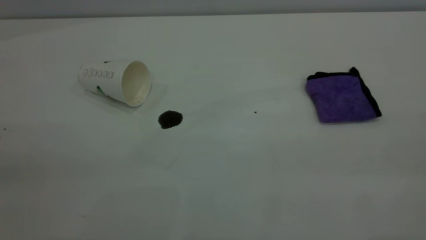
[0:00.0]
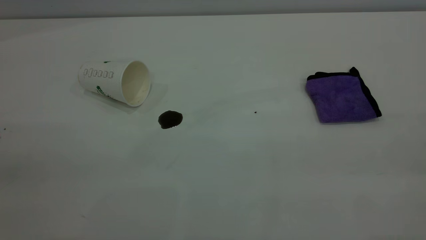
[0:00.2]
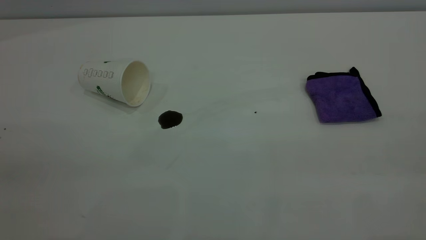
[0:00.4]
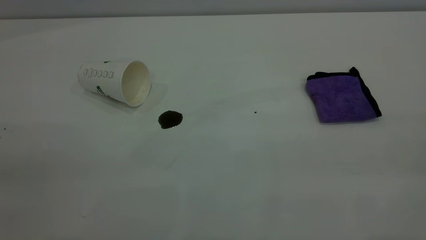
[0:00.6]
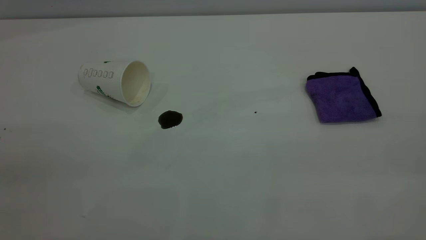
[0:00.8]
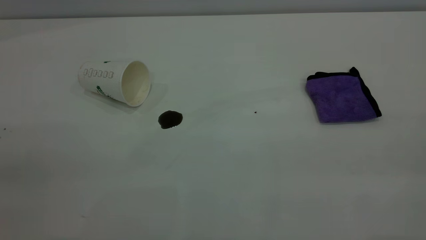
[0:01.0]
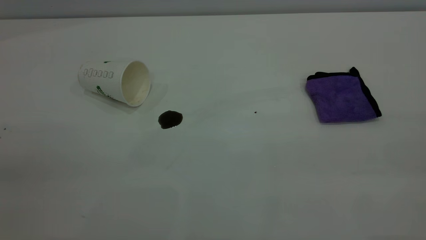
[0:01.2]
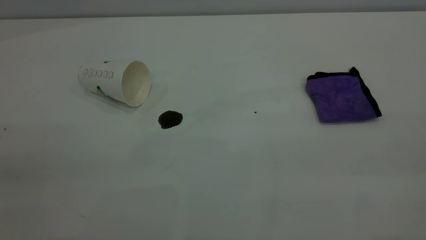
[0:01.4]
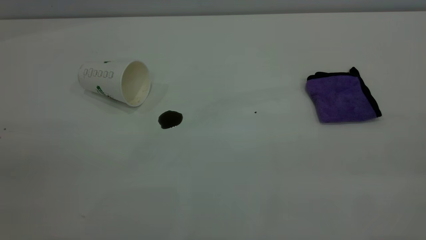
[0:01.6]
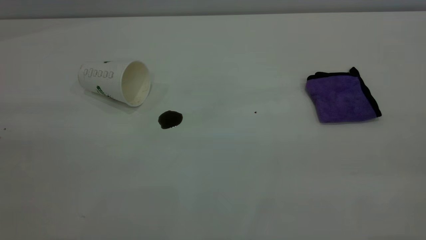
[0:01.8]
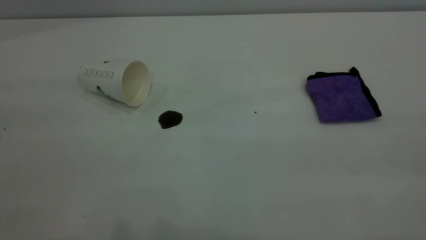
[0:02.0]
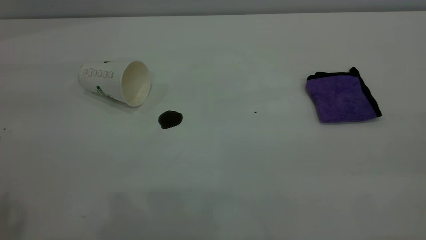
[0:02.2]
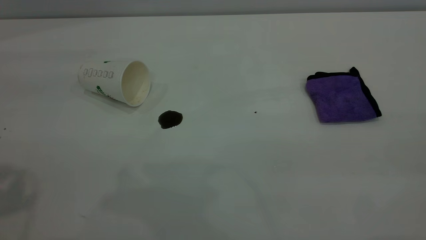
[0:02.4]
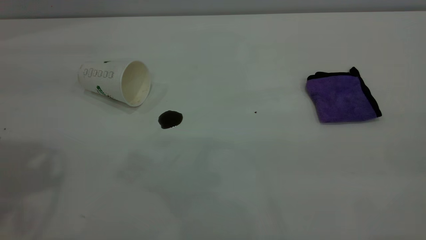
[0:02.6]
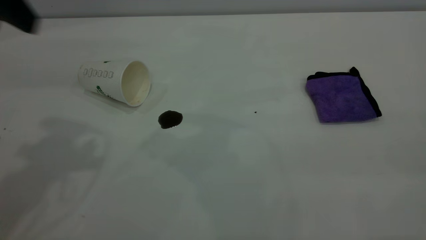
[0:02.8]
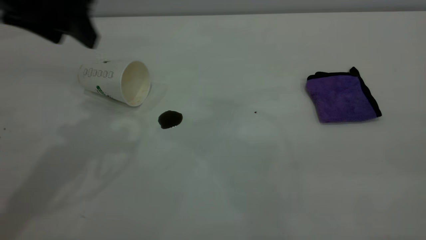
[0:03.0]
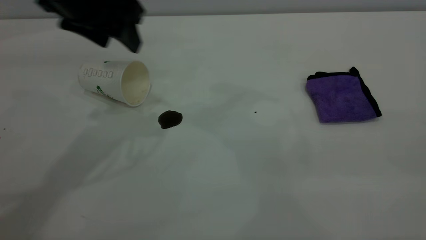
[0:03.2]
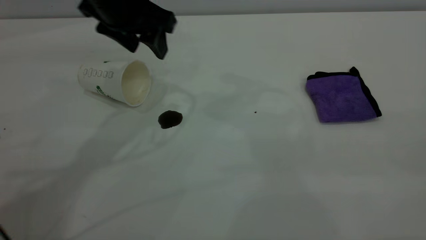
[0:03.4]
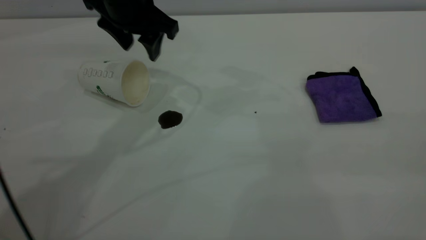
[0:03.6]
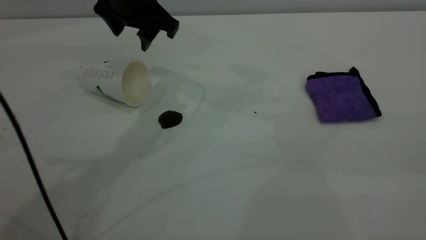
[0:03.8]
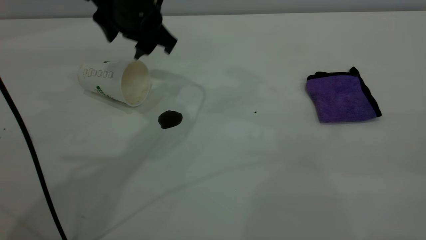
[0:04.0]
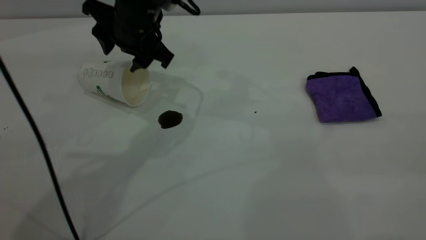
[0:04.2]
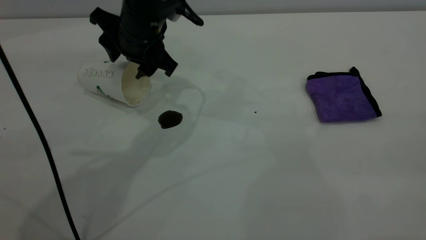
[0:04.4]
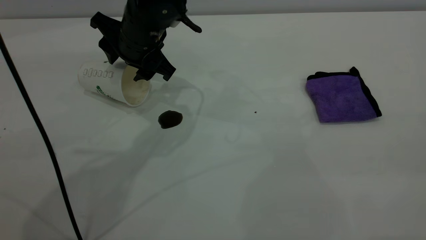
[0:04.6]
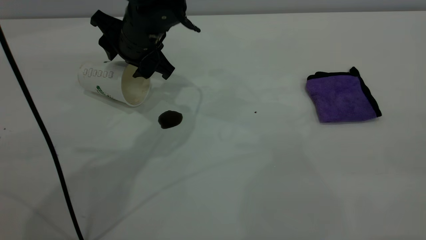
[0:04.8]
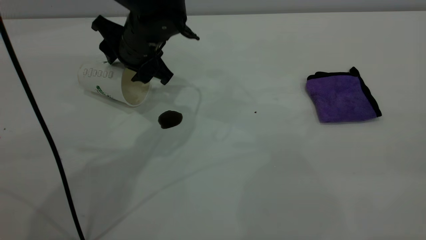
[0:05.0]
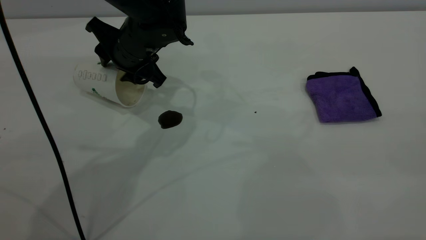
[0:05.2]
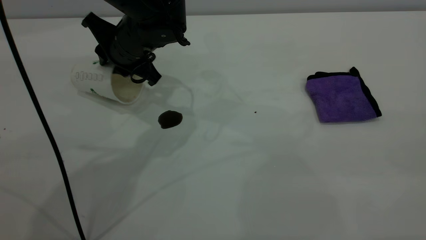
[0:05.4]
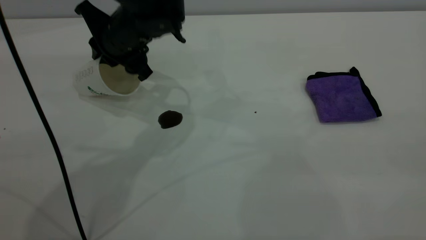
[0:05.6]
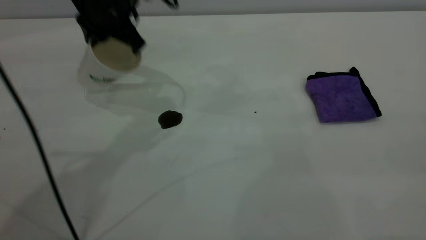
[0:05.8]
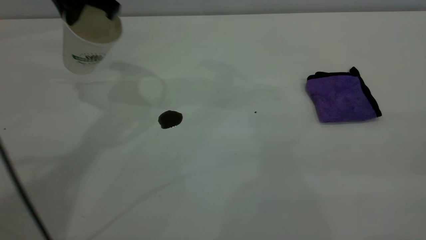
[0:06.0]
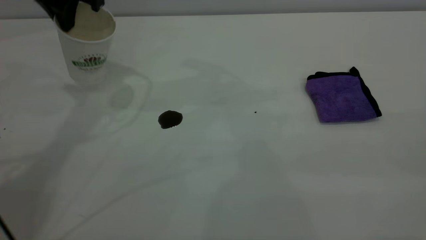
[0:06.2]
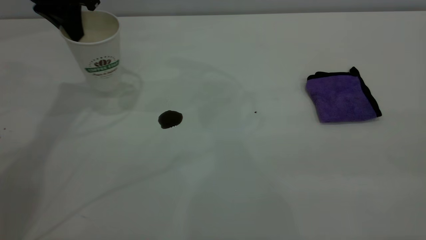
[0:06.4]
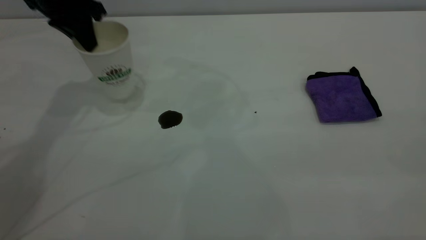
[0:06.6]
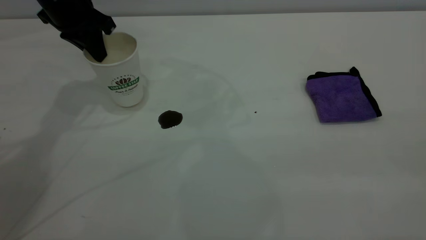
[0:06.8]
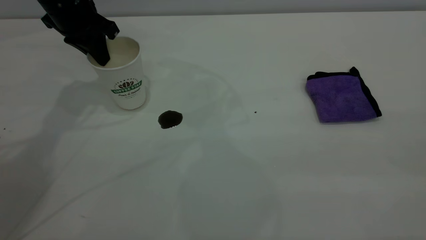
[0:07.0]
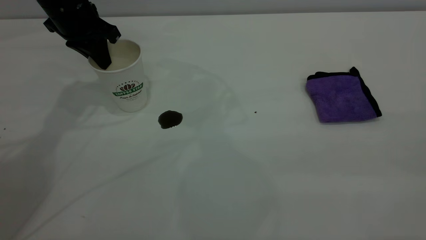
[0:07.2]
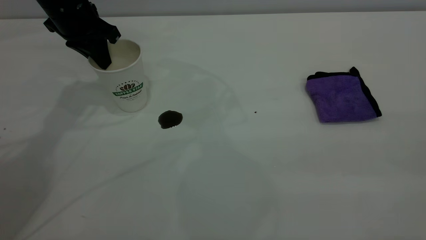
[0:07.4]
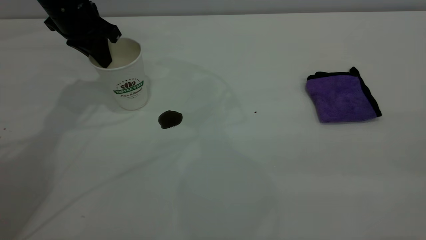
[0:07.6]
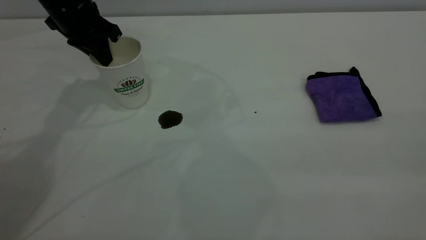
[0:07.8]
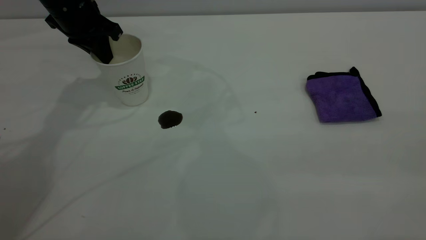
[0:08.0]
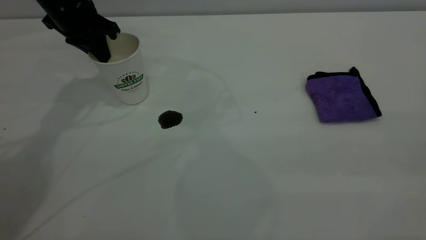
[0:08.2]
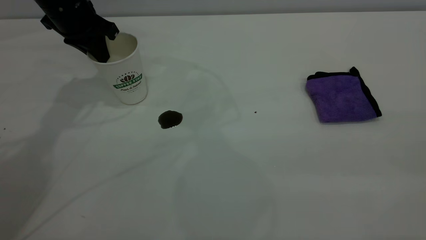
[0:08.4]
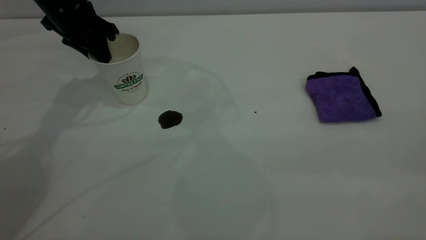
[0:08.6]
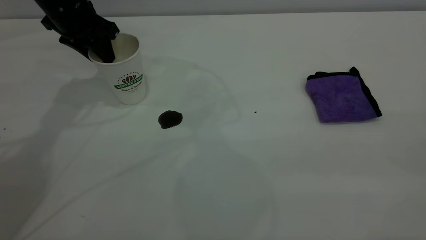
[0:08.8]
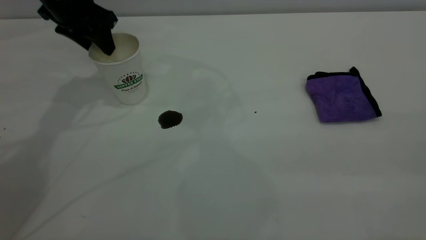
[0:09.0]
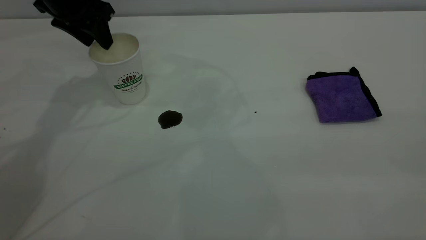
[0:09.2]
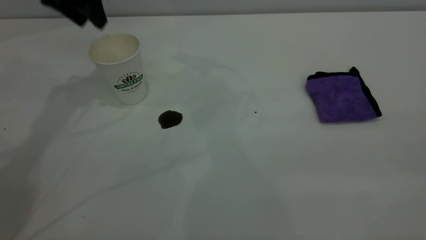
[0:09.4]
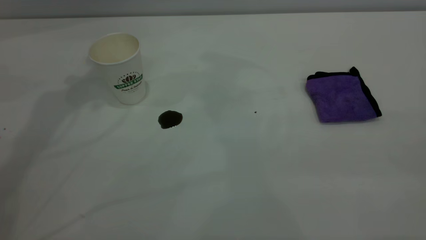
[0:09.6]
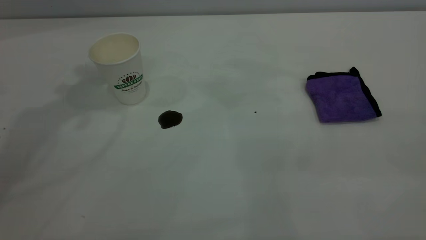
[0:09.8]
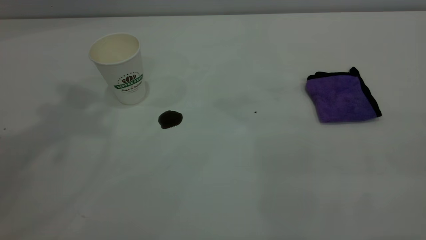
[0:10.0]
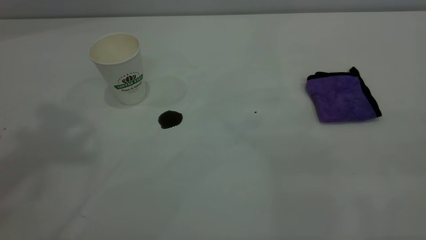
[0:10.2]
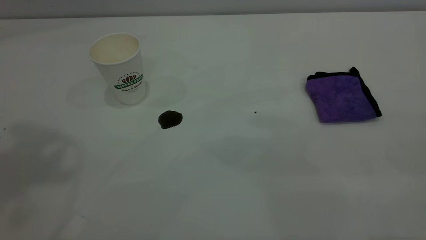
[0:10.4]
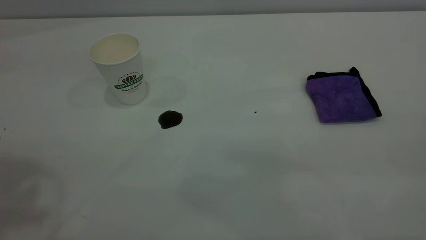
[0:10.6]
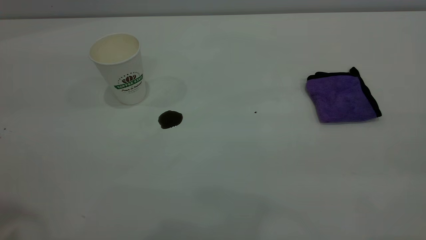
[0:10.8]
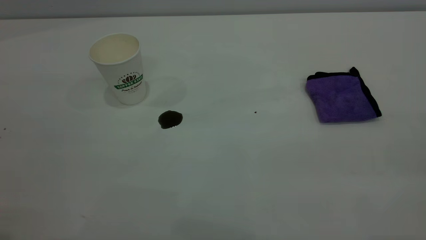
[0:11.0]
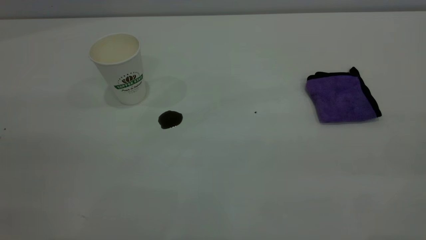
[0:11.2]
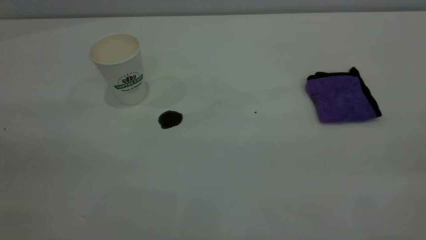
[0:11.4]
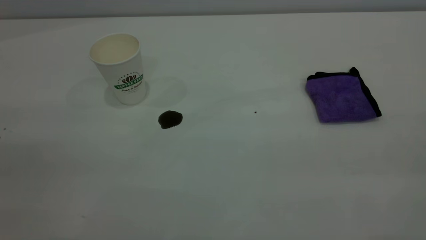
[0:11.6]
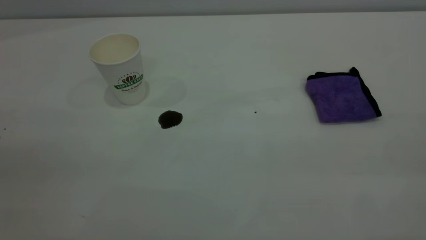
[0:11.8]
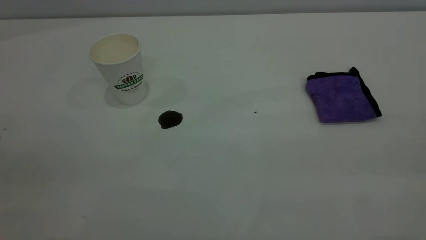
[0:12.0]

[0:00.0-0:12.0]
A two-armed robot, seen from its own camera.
Task of the whole recording: the left gripper pick up the fallen cup and place it upright, the right gripper grasp the purple rag and wipe the coffee stain on the table, the right gripper put the purple rag back in its original position.
Step, 0:00.0 to 0:09.2: Stand the paper cup upright.
0:00.0 to 0:01.6: Both grippers stay about where they are.
0:01.6 to 0:03.0: The left gripper heads forward, covering about 35 cm.
0:03.0 to 0:04.4: The left gripper travels downward, to the right and forward by some 15 cm.
0:04.4 to 0:06.0: The left gripper travels upward and to the left by approximately 15 cm, and closes its fingers.
0:06.0 to 0:07.6: The left gripper shifts roughly 10 cm downward and to the left.
0:07.6 to 0:09.0: The left gripper opens.
0:09.0 to 0:10.4: The left gripper heads upward and backward, covering some 40 cm.

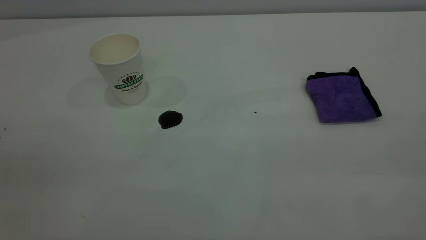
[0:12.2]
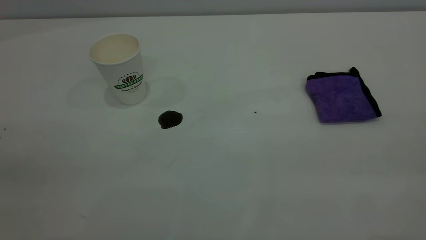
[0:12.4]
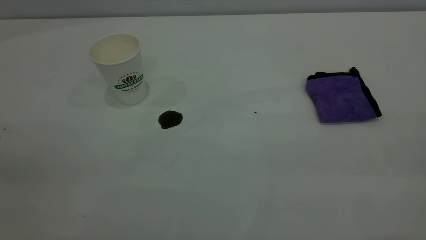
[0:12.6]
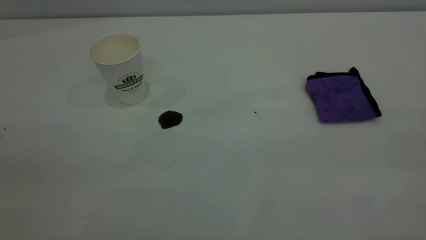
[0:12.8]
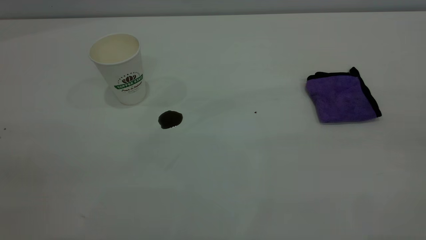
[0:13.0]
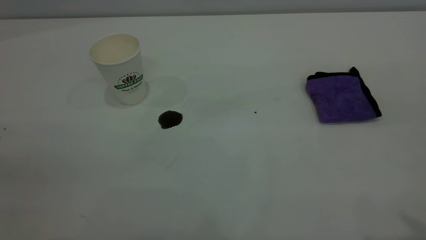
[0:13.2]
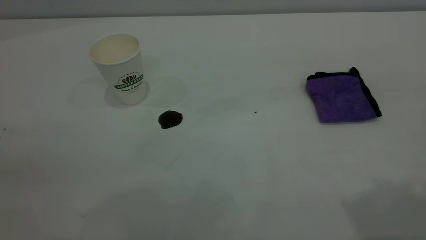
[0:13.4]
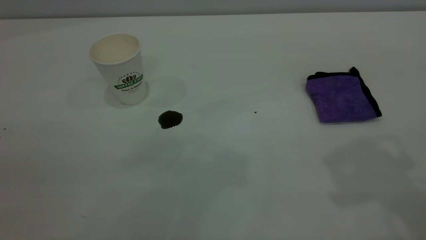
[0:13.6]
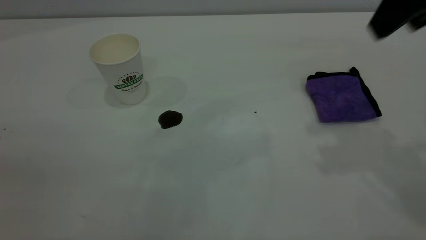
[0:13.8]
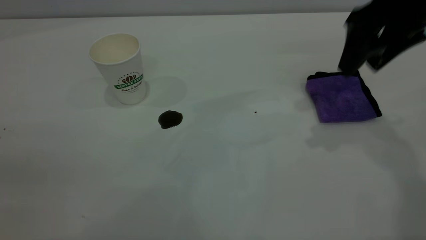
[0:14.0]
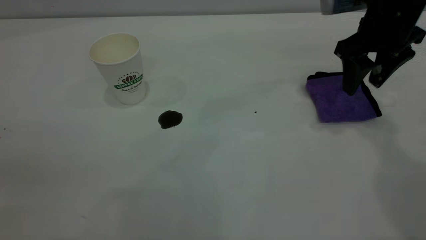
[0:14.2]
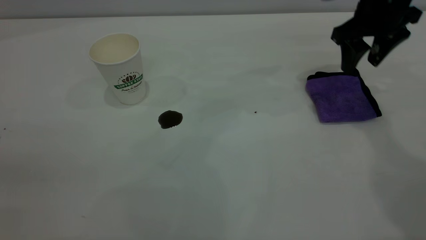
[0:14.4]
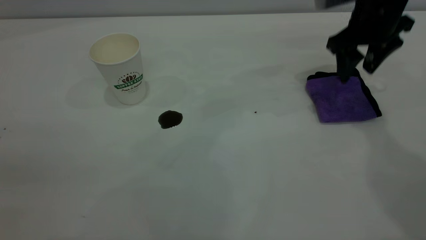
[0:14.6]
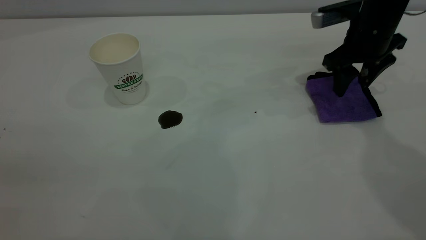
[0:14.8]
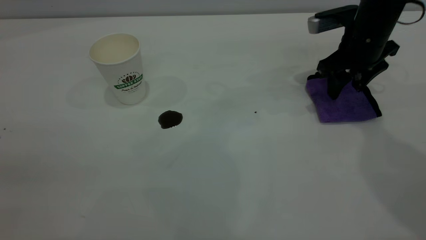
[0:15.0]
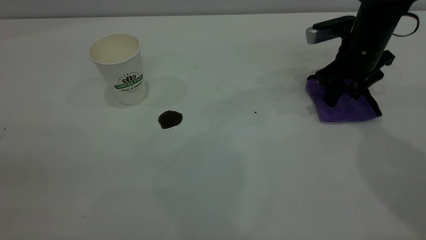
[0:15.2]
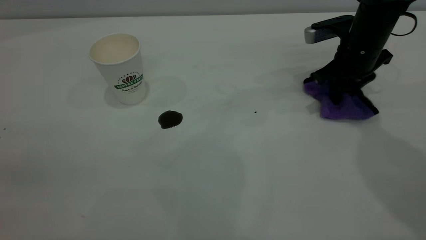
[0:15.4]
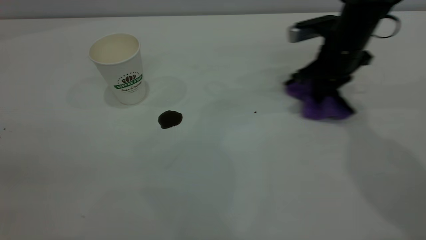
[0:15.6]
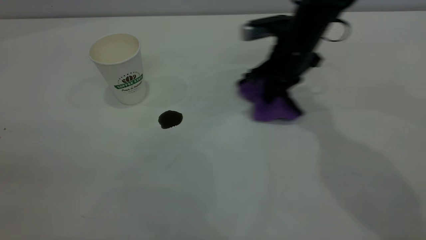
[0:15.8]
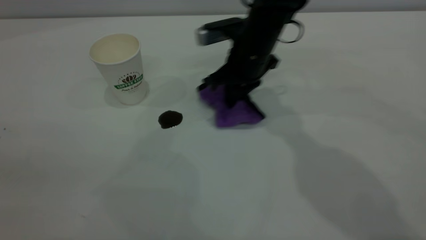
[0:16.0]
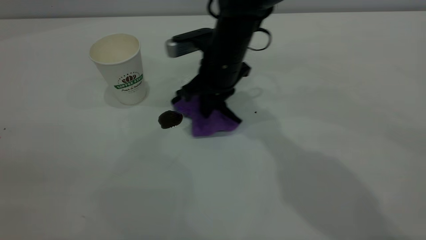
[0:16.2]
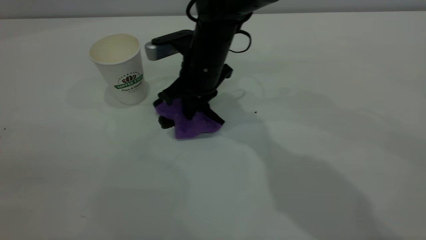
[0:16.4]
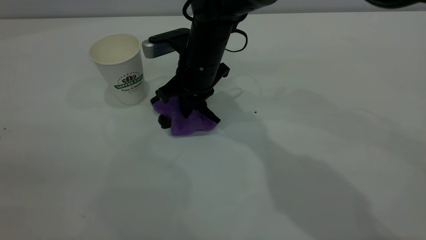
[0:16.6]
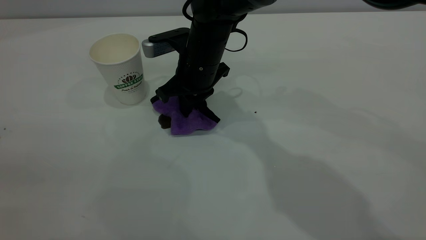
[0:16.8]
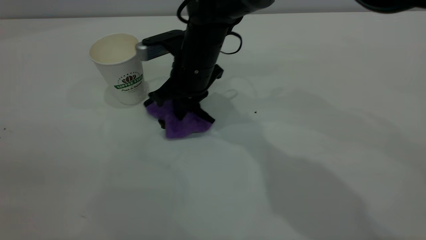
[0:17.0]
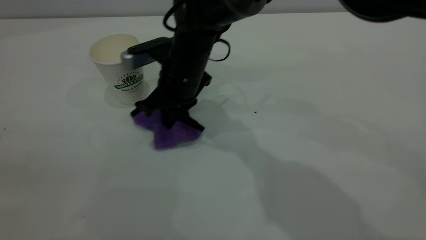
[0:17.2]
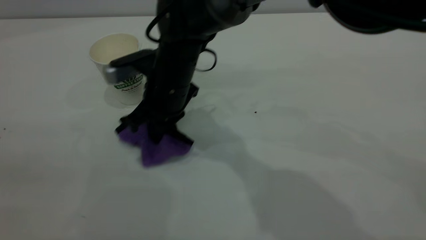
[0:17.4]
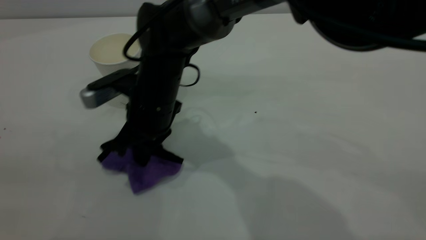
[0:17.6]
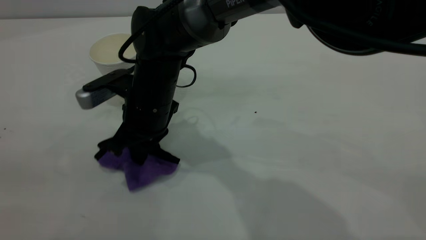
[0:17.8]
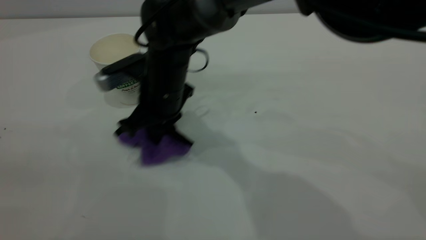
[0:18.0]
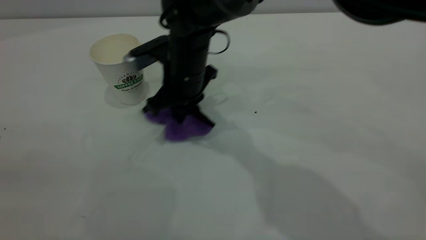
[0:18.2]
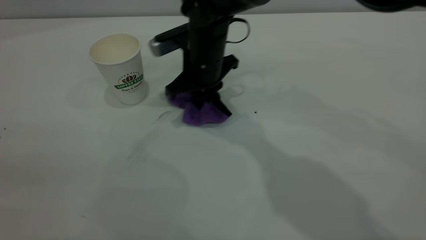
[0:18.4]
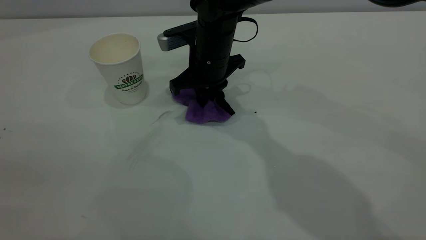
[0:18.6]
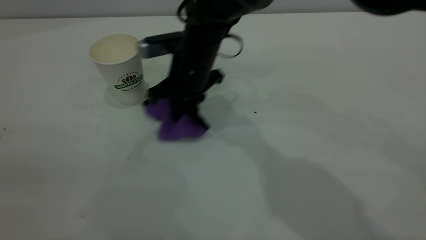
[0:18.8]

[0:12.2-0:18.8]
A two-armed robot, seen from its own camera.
Task of the whole recording: the left gripper pick up the fallen cup and place it upright, the right gripper grasp the purple rag and wipe the coffee stain on the table, the right gripper put the purple rag back in its original position.
0:12.2 to 0:13.8: The right gripper travels forward by about 30 cm.
0:13.8 to 0:15.4: The right gripper shifts roughly 25 cm downward and forward, and closes up.
0:15.4 to 0:17.2: The right gripper travels to the left by some 30 cm.
0:17.2 to 0:18.8: The right gripper reaches approximately 5 cm backward, then returns.
